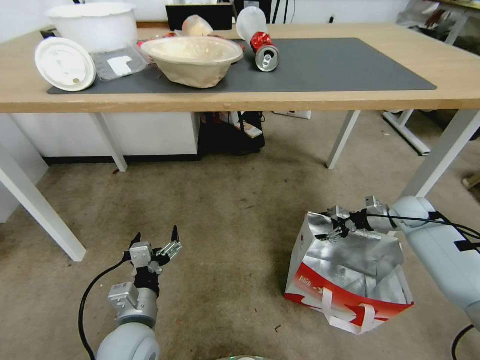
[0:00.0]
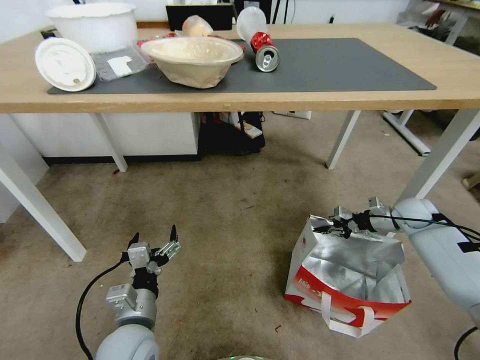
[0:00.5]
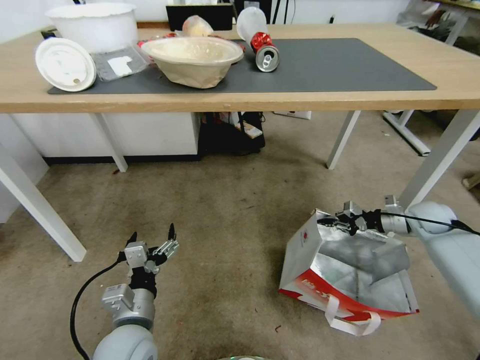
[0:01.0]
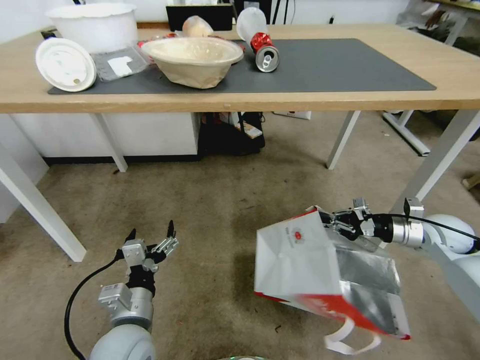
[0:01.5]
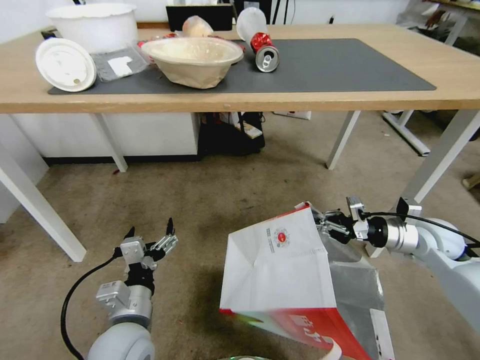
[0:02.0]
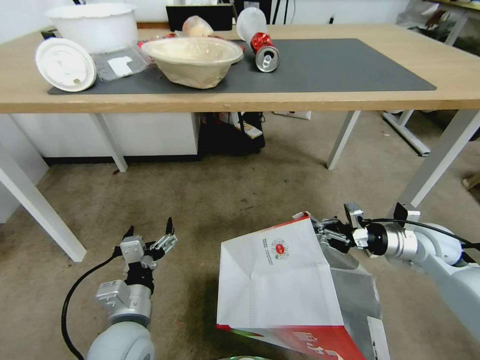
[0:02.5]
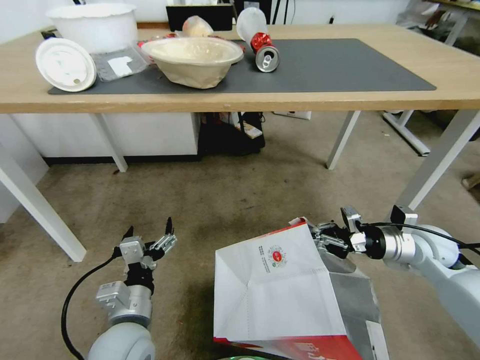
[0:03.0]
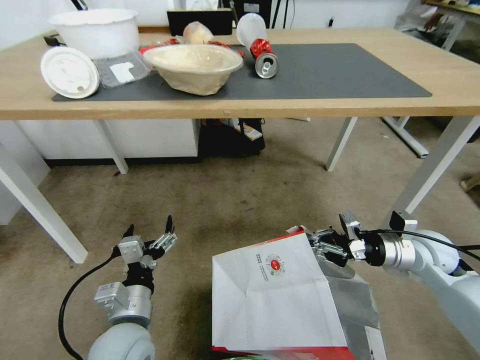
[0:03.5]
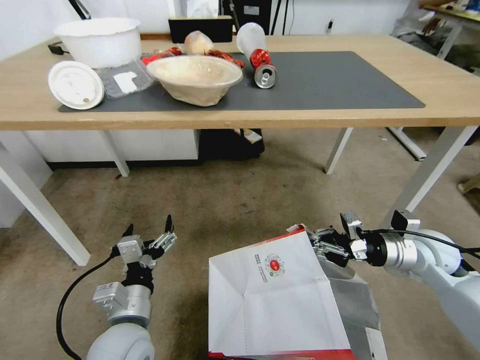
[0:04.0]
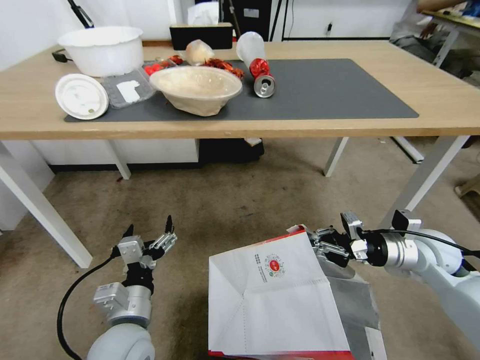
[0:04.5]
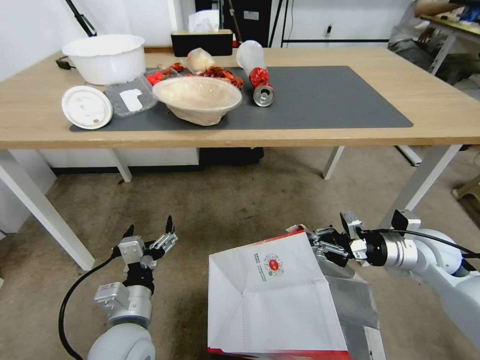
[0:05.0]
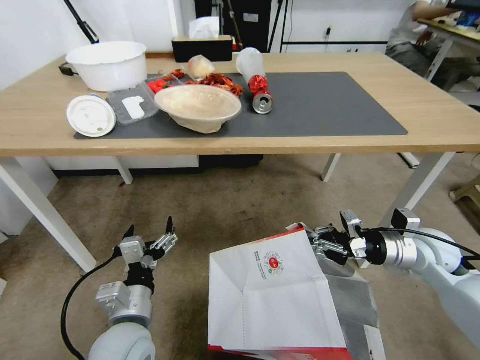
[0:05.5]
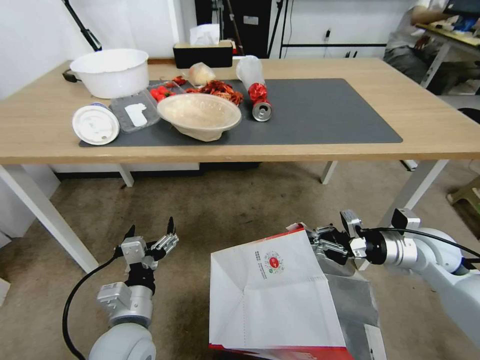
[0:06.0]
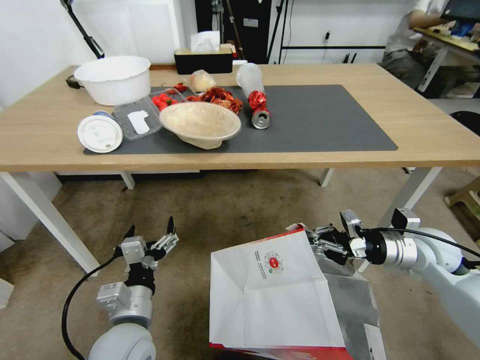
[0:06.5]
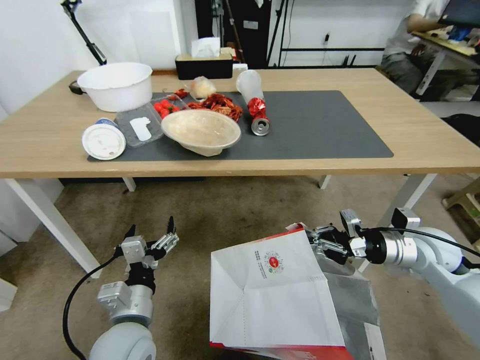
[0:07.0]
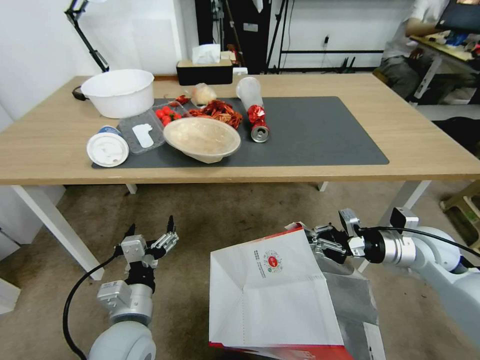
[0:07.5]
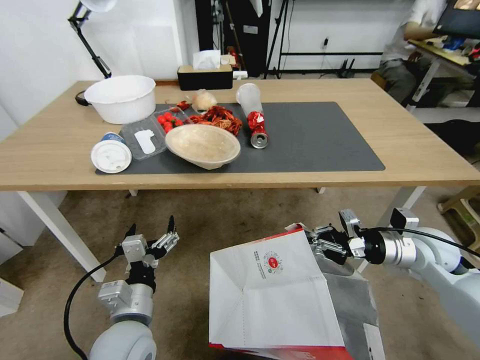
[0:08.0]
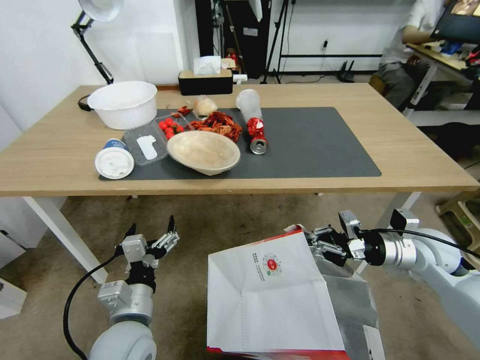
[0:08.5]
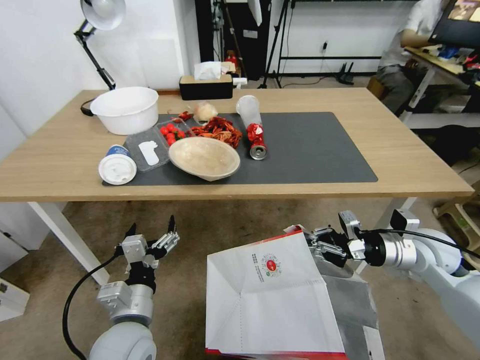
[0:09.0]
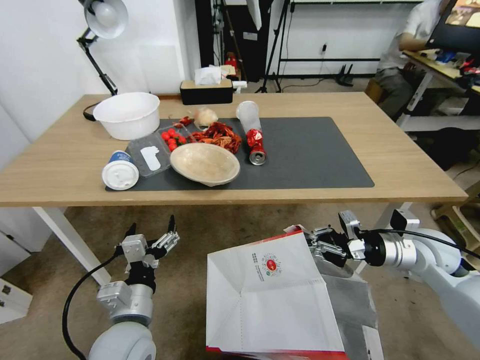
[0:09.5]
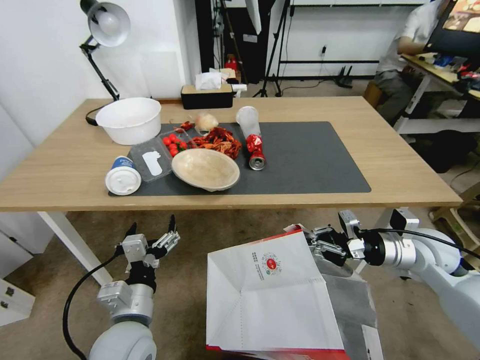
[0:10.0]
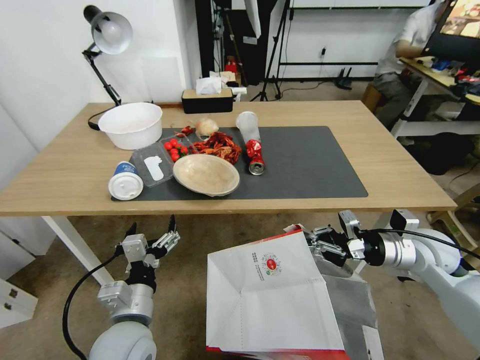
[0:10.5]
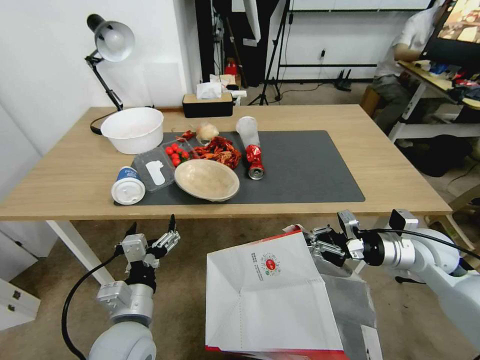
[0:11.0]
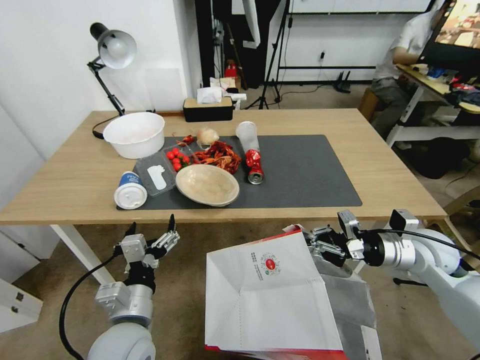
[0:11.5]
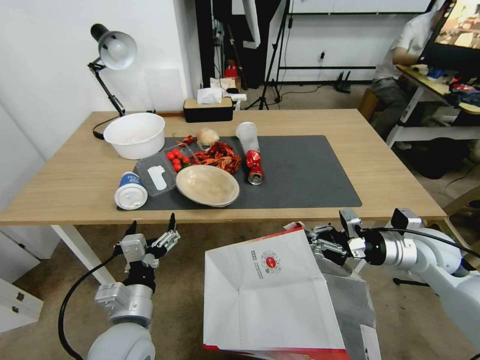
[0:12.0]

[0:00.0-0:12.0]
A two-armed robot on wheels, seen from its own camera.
Task of the whole recording: Pick up the food delivery bag from the floor and place it on the table.
0:00.0 to 0:02.0: The right gripper heads backward, upward and to the left, covering about 15 cm, and closes.

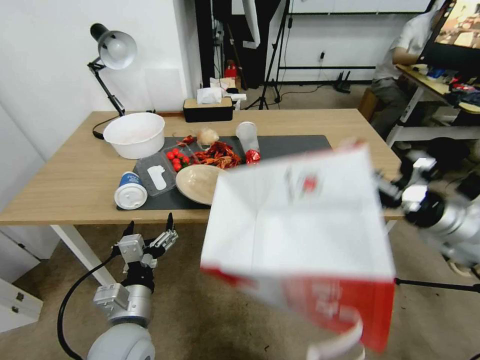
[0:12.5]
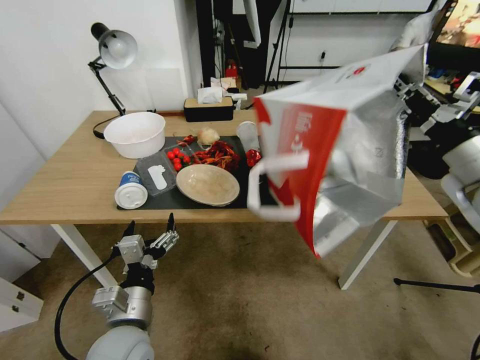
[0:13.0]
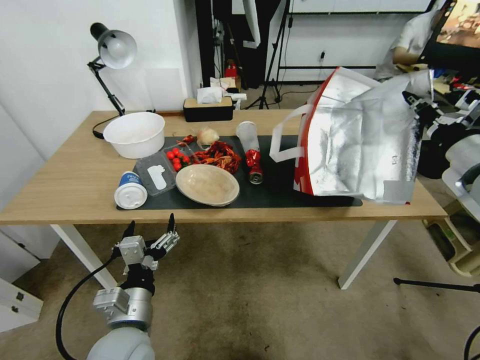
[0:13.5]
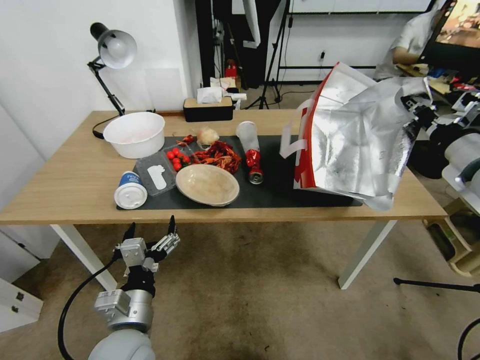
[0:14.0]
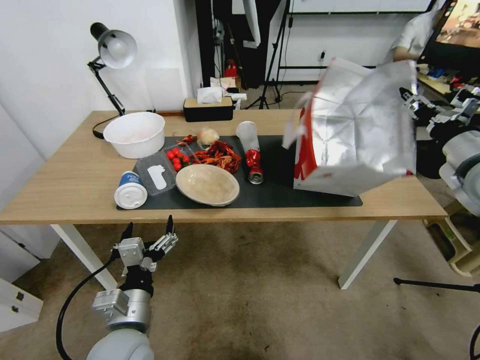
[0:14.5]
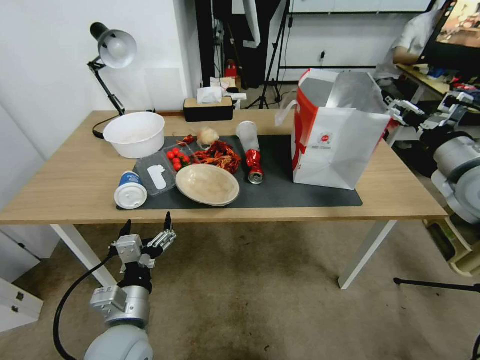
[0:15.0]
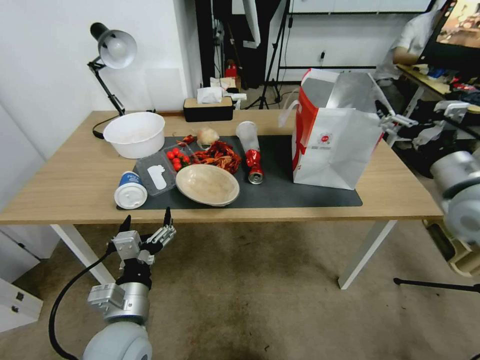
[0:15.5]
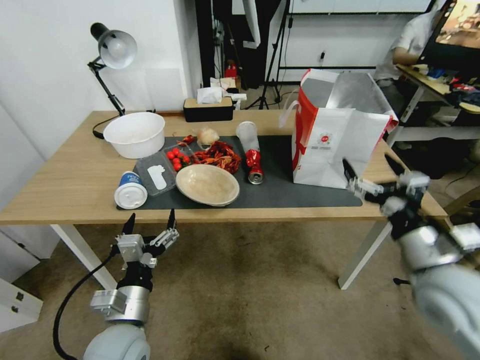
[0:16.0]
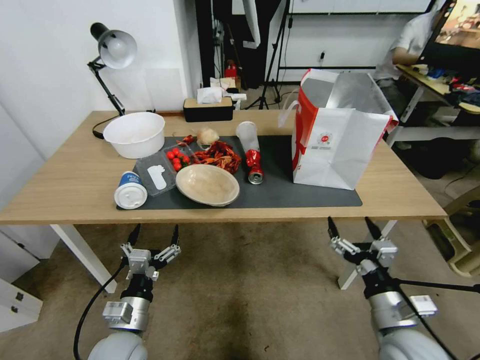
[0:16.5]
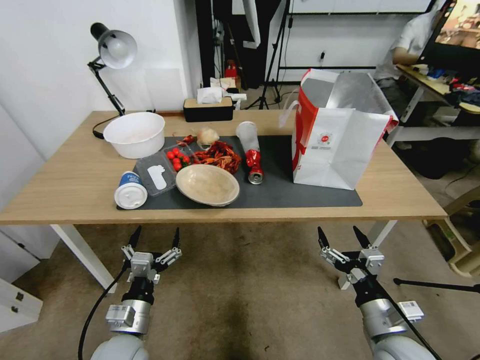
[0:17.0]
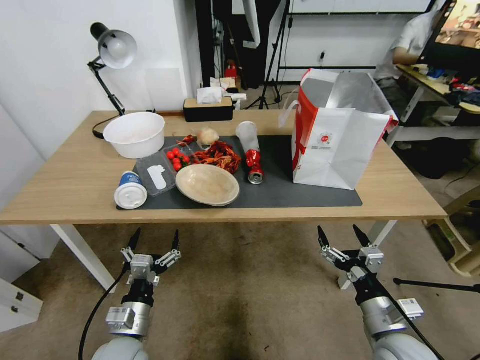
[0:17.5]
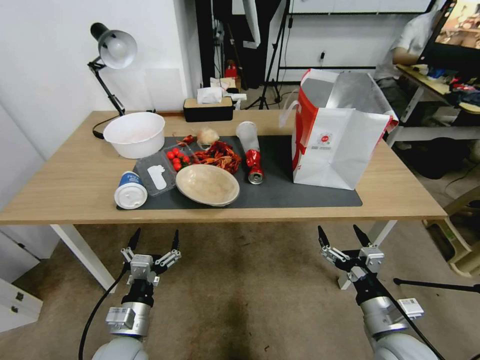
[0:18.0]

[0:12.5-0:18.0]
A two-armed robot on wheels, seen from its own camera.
Task of the whole recording: Pick up the food delivery bag from the floor and place it on the table.
0:12.5 to 0:14.5: The right gripper moves upward, approximately 10 cm, and opens its fingers.
0:14.5 to 0:16.0: The right gripper moves backward, downward and to the left, some 20 cm, and opens its fingers.
0:16.0 to 0:18.0: The left gripper goes roughly 10 cm downward. The right gripper is displaced downward and backward by about 20 cm.

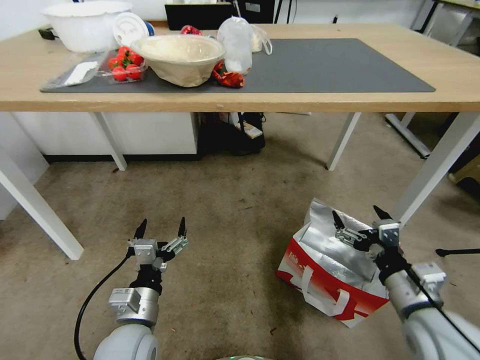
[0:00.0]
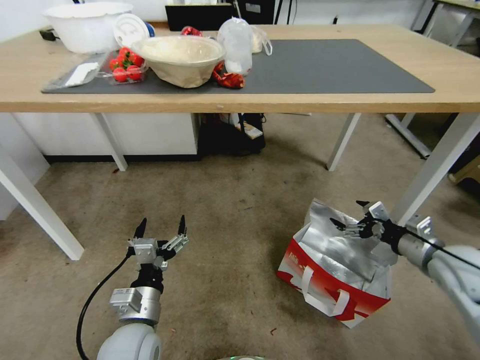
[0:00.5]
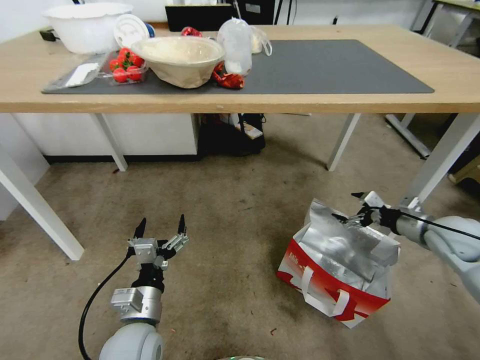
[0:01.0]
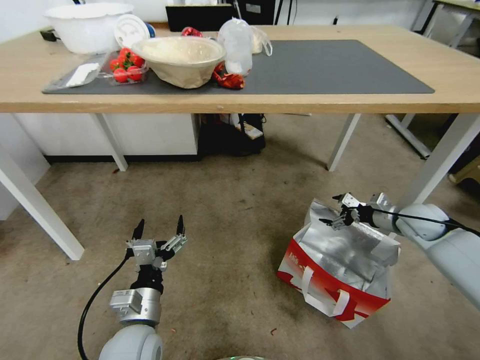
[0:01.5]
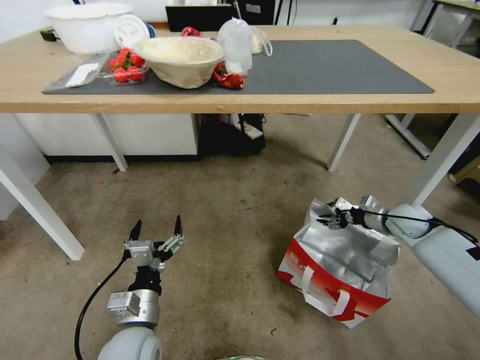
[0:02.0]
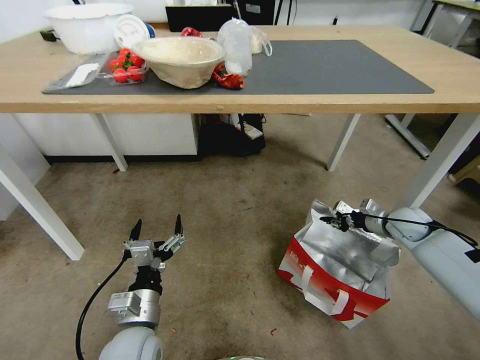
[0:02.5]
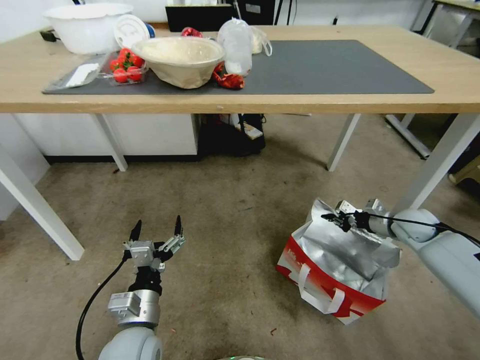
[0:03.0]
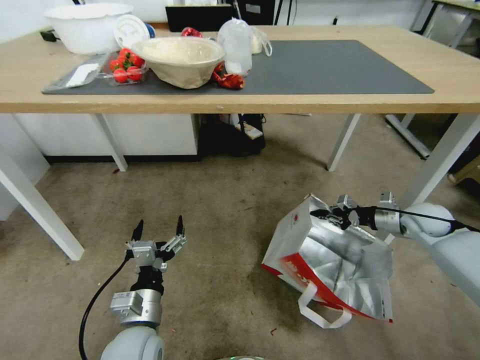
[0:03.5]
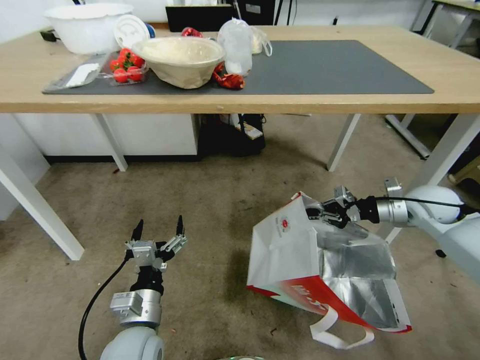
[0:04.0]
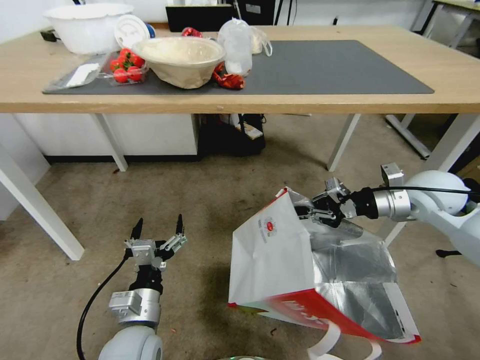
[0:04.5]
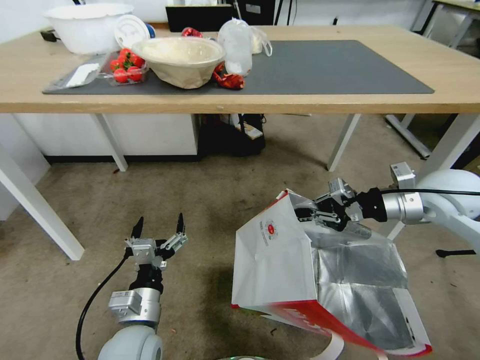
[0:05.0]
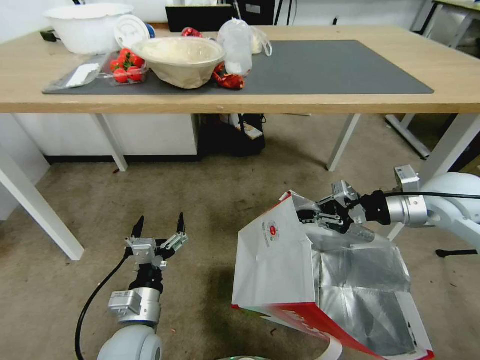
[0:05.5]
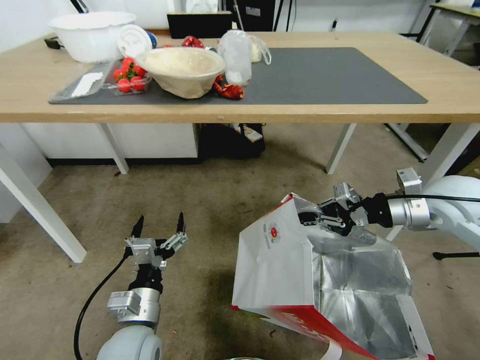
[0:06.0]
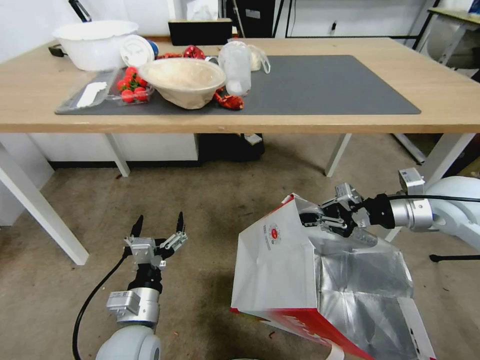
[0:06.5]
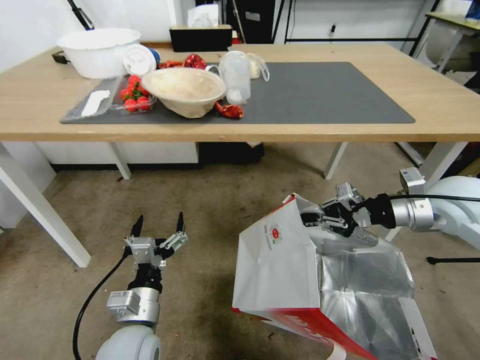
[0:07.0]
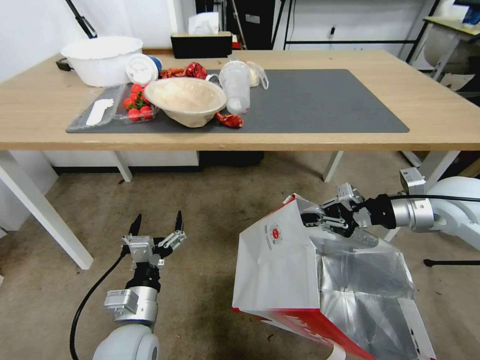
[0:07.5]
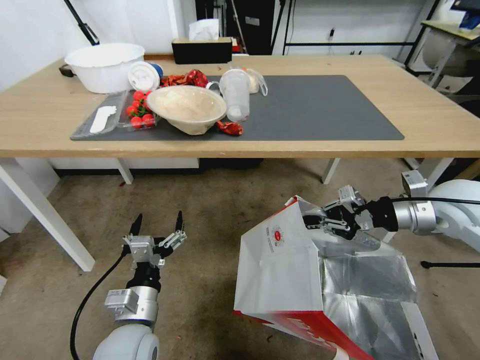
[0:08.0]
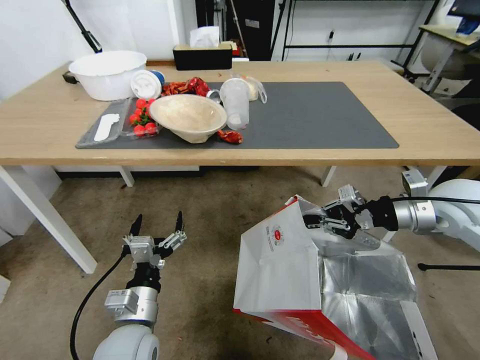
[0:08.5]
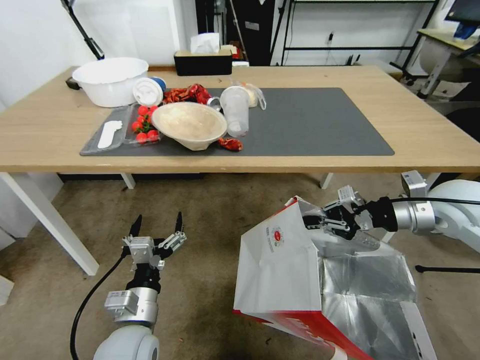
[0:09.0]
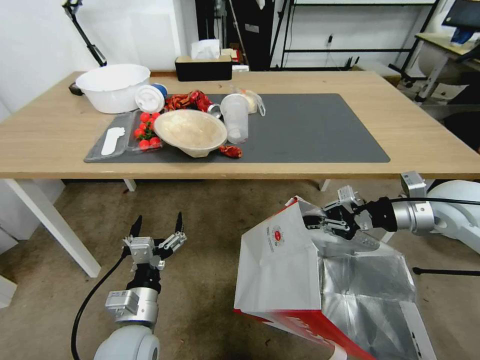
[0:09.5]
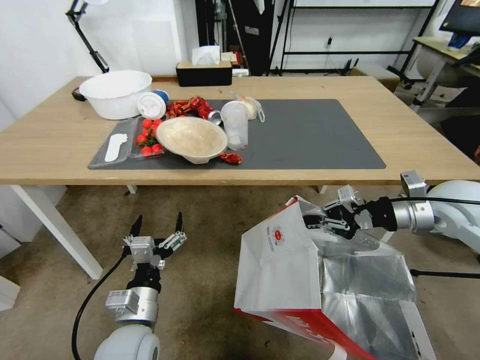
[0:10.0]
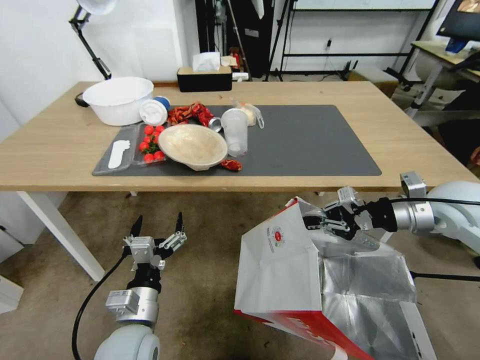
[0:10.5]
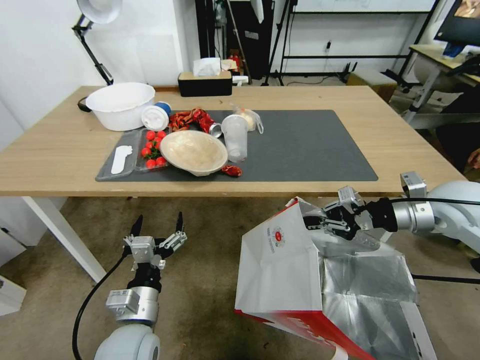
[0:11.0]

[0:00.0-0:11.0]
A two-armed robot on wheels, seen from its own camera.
Task of the whole recording: Pick up the food delivery bag from the floor and place it on the table.
0:00.0 to 0:02.0: The right gripper moves forward and to the right, about 30 cm.
0:02.0 to 0:03.5: The right gripper closes.
0:03.5 to 0:05.5: The right gripper heads upward and to the left, covering approximately 20 cm.
